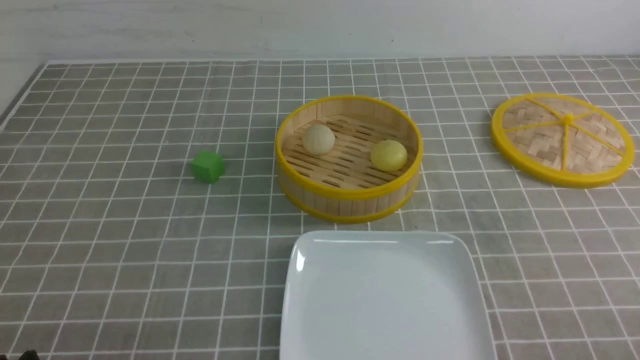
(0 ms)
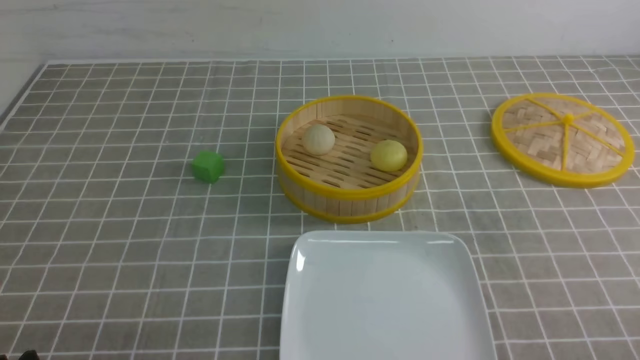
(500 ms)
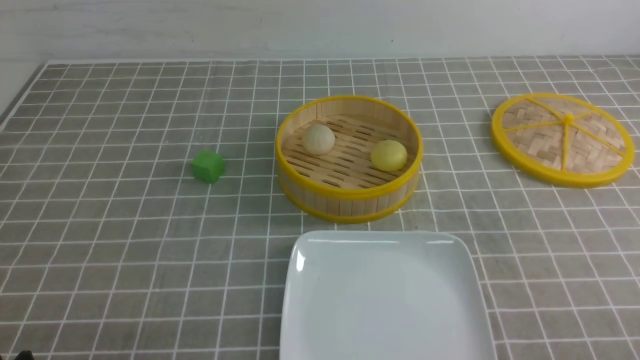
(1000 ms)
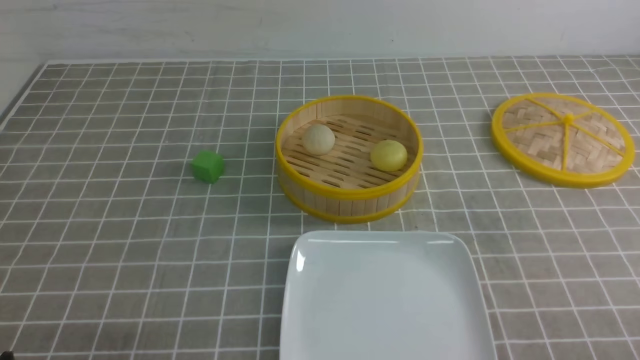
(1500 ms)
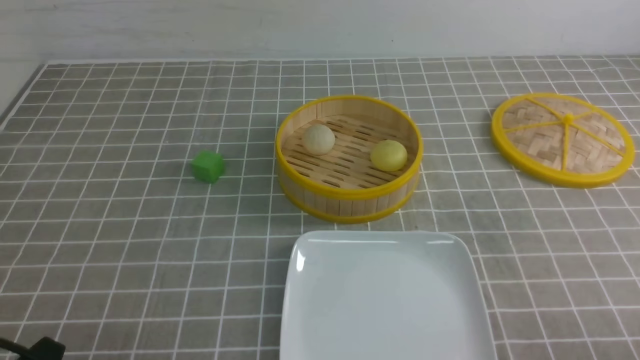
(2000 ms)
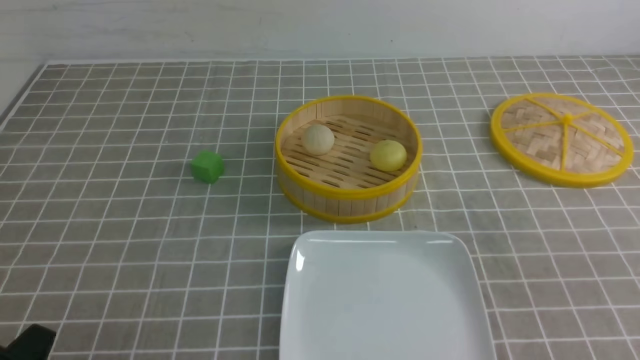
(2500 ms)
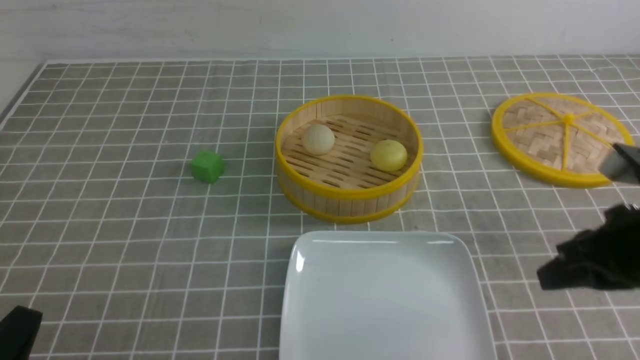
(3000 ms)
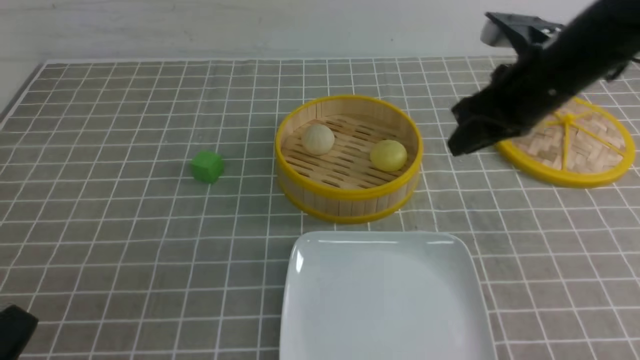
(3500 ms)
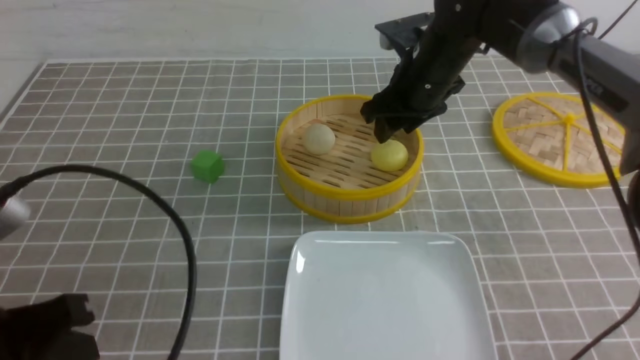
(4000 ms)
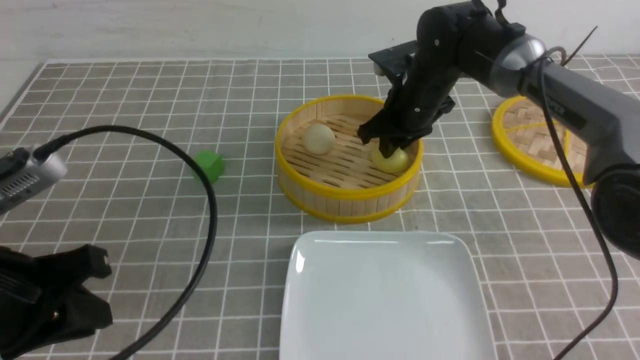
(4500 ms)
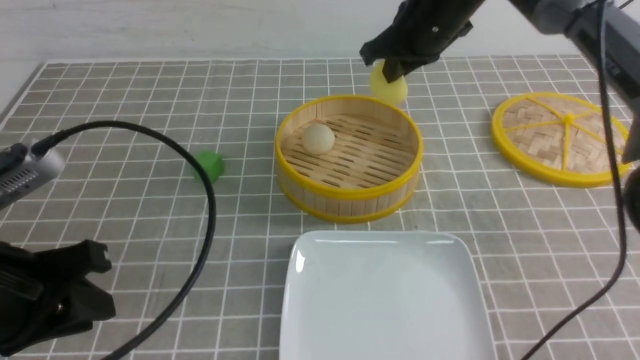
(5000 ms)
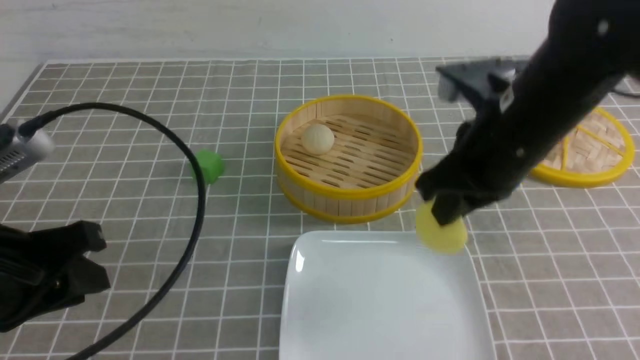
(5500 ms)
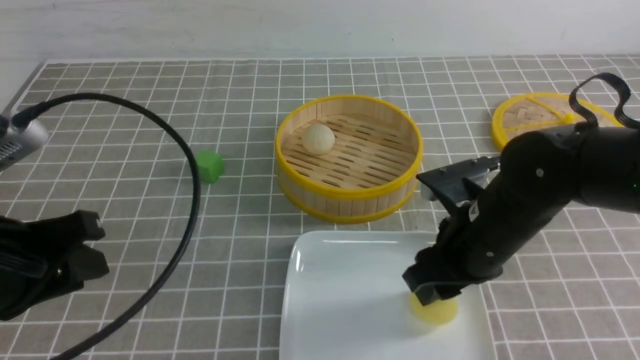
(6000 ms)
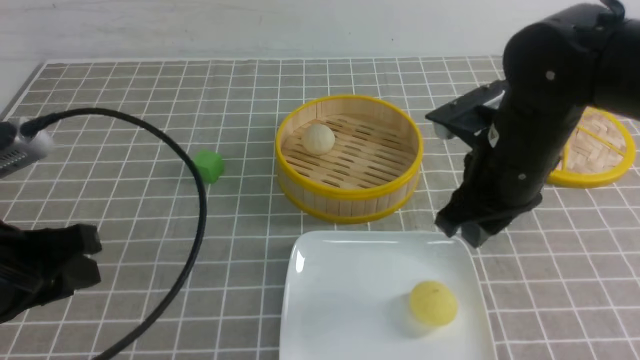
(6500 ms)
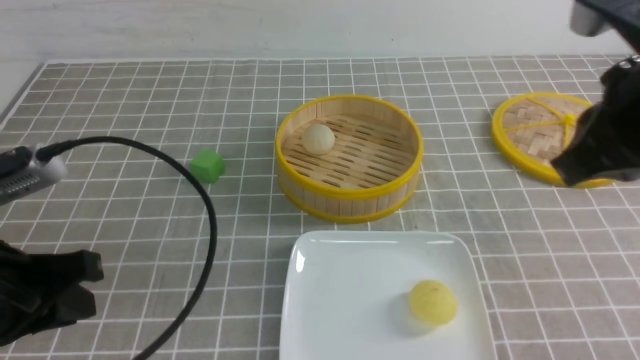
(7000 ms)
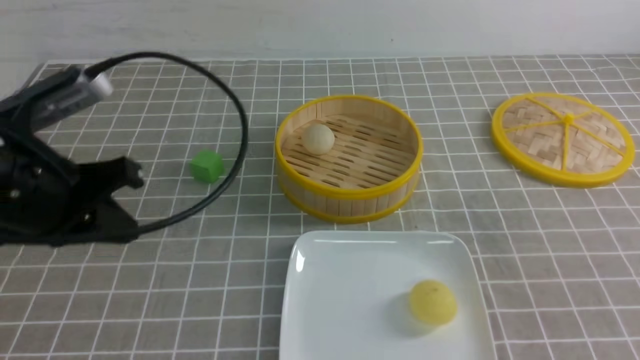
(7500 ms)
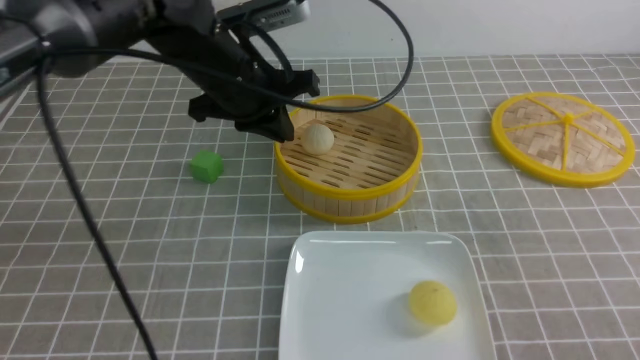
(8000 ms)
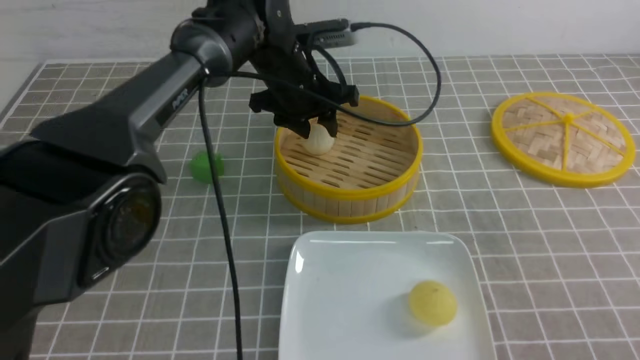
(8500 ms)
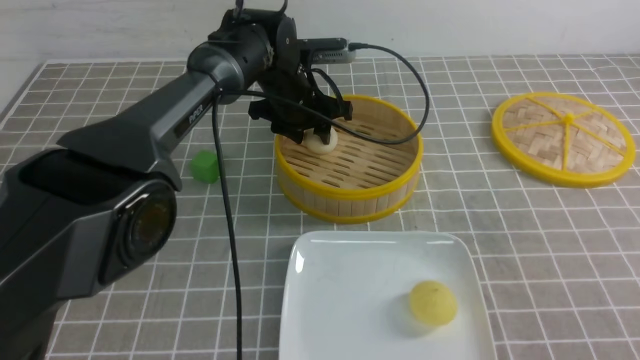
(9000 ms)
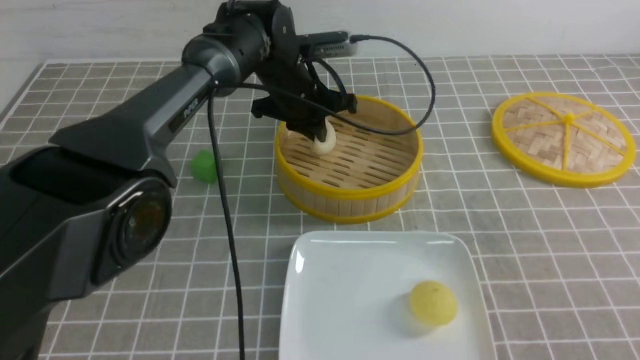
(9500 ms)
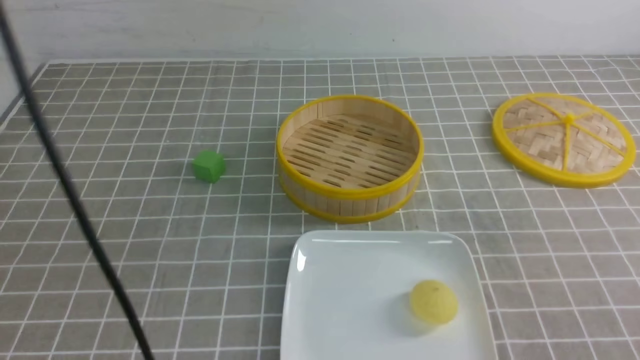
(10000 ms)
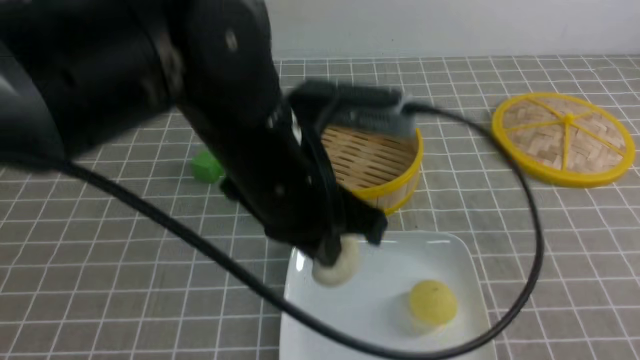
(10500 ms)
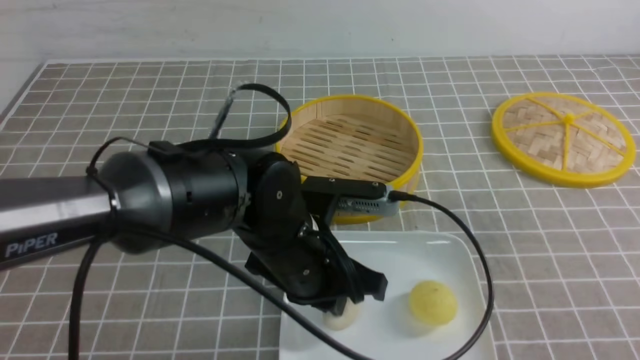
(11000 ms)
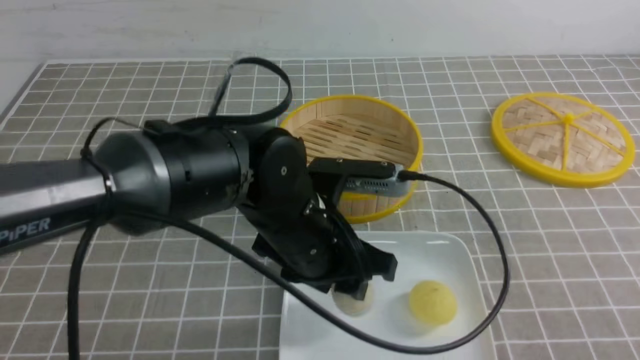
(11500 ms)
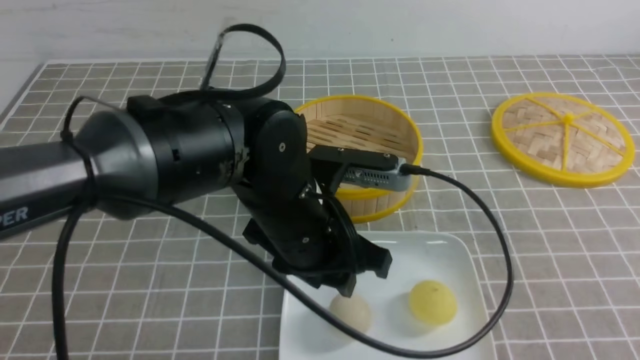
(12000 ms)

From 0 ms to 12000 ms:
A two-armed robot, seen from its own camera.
Step, from 0 ms to 4500 ms: use the right arm to grab the steamed stuffed bun that is closest to it.
Step, from 5000 ms to 6000 ms: use the right arm to put the steamed stuffed bun into the plate.
Step, from 6500 ms to 9500 ms: use the left arm to grab the steamed stuffed bun that is closest to it.
From 2000 ms to 4000 ms: The left gripper travels upward and forward by roughly 10 cm, and closes its fingers, while the right gripper goes approximately 40 cm forward and to the left, and opens its fingers.
From 4000 ms to 6000 ms: The left gripper moves forward, approximately 5 cm, and opens; the right gripper moves backward, approximately 20 cm, and closes, then opens again.
From 6000 ms to 8000 ms: The right gripper moves backward and to the right, about 25 cm, and closes, while the left gripper travels forward and to the right by some 25 cm.
From 8000 ms to 10000 ms: The left gripper shifts about 15 cm upward, and opens, then closes again.
From 10000 ms to 12000 ms: The left gripper moves downward and backward, roughly 25 cm, and opens its fingers. The right gripper shifts by about 5 cm.

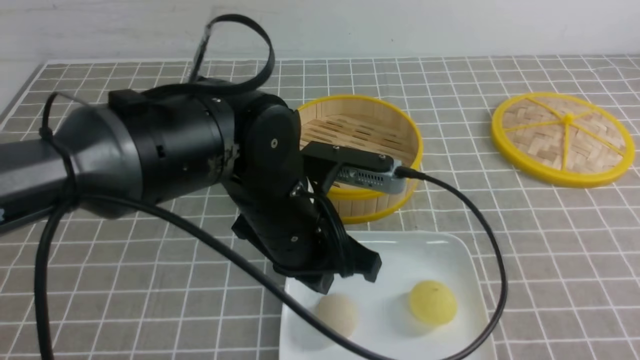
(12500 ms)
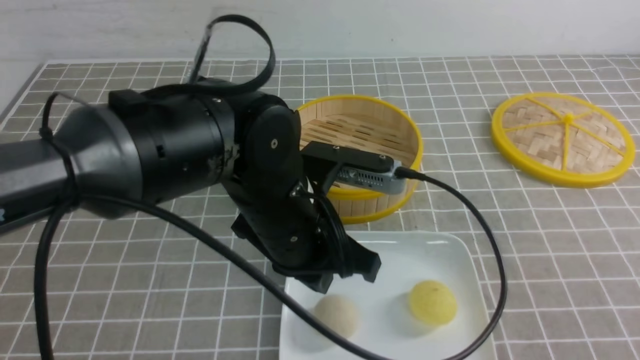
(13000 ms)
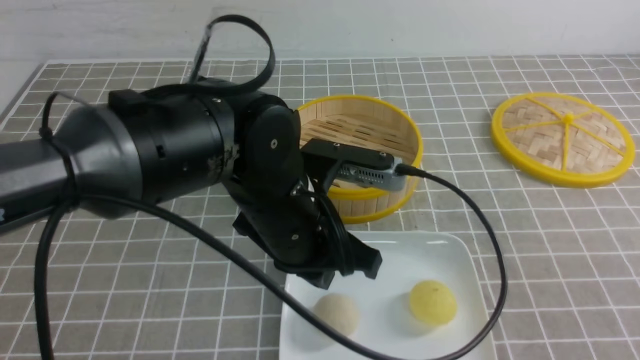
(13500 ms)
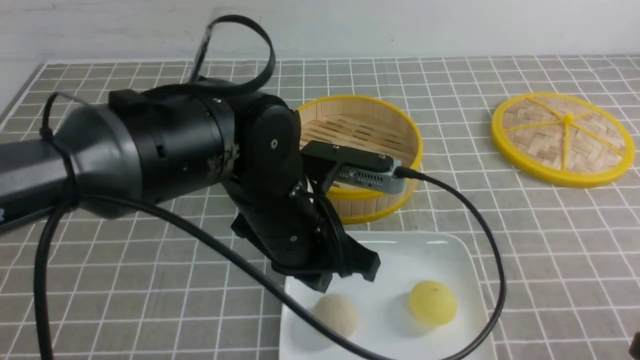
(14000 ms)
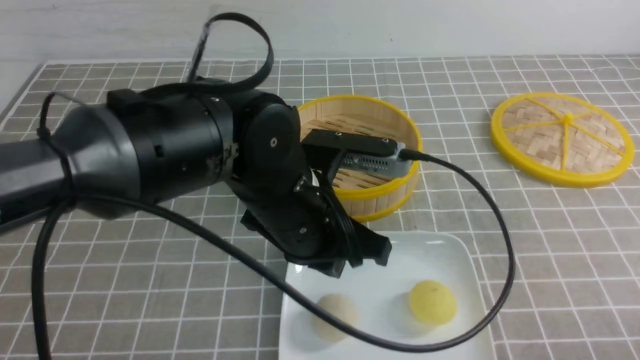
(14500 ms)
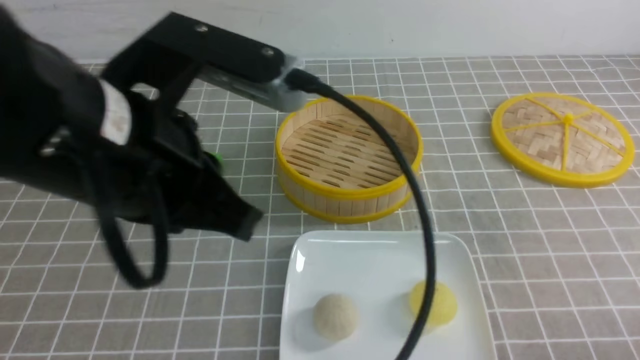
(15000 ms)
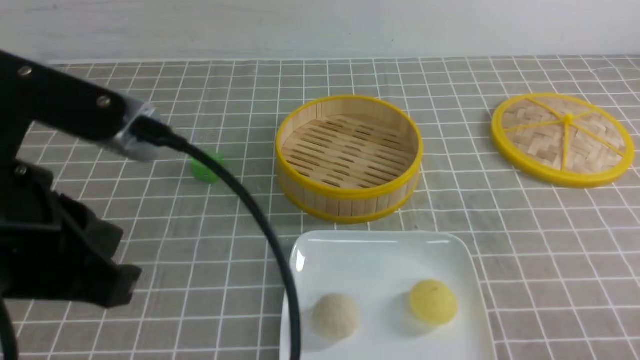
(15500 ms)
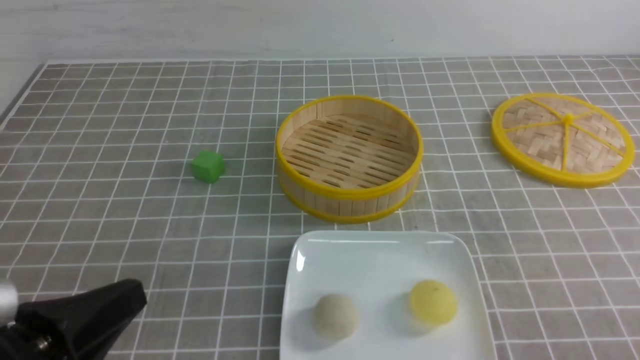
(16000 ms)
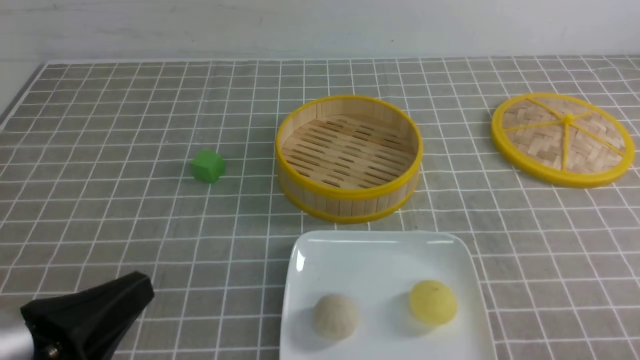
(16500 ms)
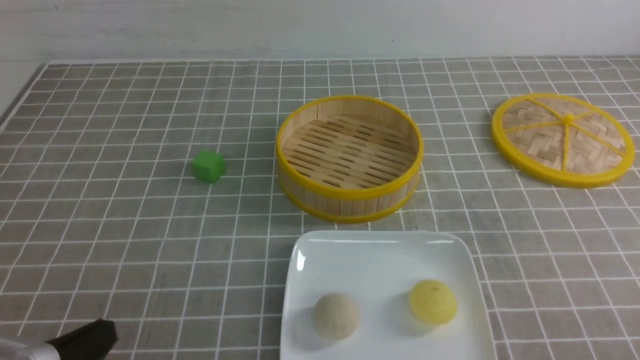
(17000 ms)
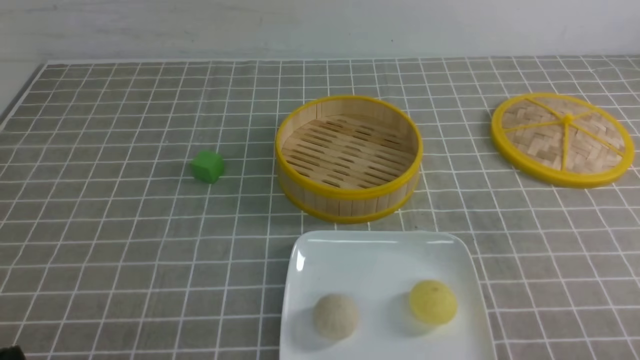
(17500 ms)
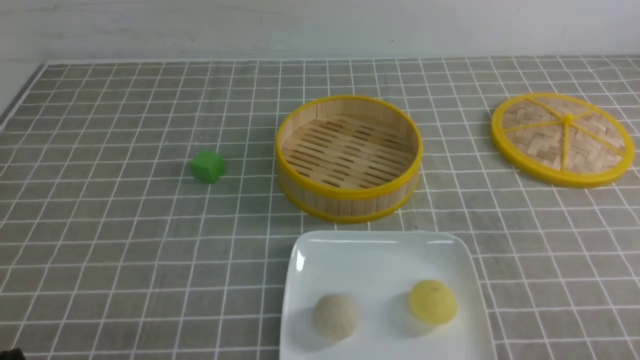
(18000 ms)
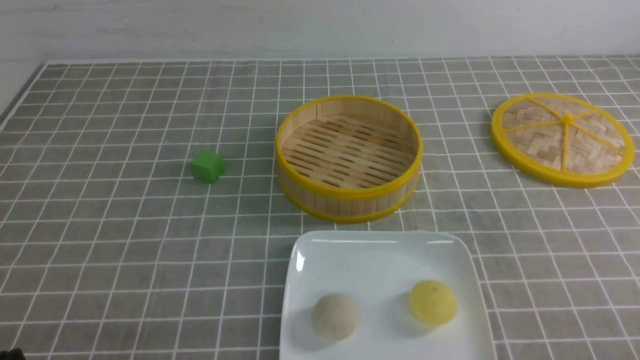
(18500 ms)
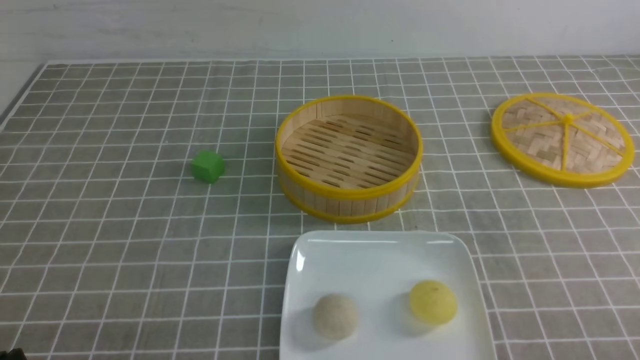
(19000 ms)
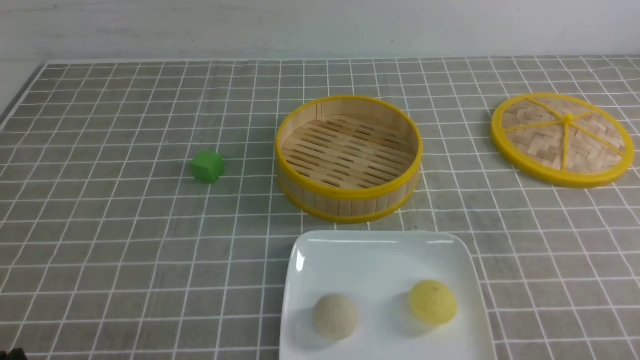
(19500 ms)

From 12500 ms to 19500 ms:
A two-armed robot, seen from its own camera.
From 12500 ms to 14500 ms: The right gripper goes about 10 cm downward.
From 14500 ms to 16000 ms: The left gripper shifts about 25 cm to the left and backward.
From 16000 ms to 17500 ms: The left gripper travels downward and to the left by approximately 10 cm.
From 17500 ms to 19500 ms: Both grippers stay about where they are.
